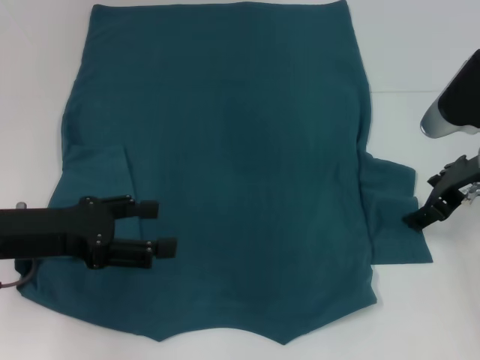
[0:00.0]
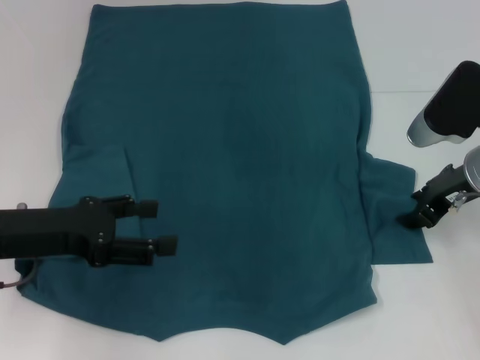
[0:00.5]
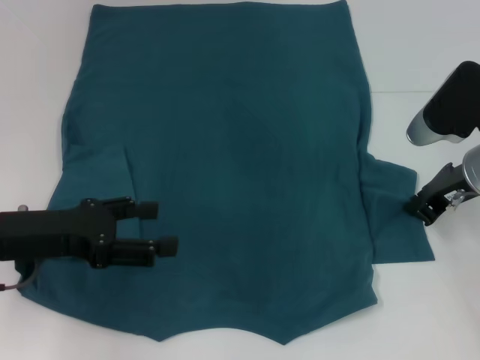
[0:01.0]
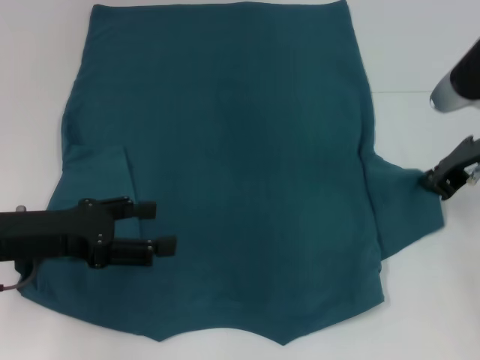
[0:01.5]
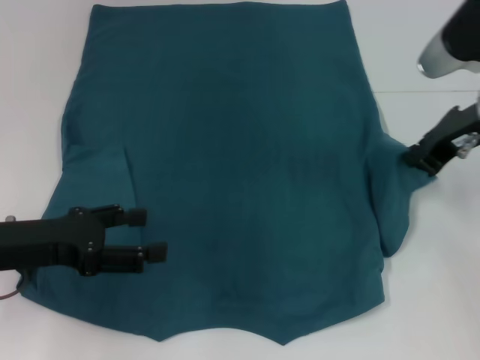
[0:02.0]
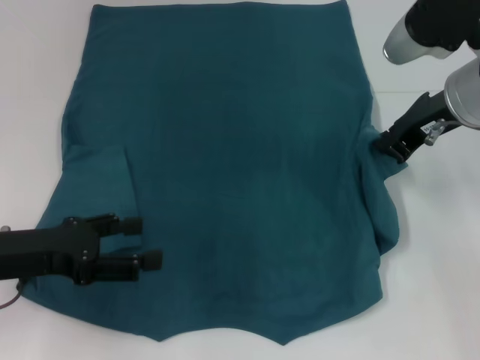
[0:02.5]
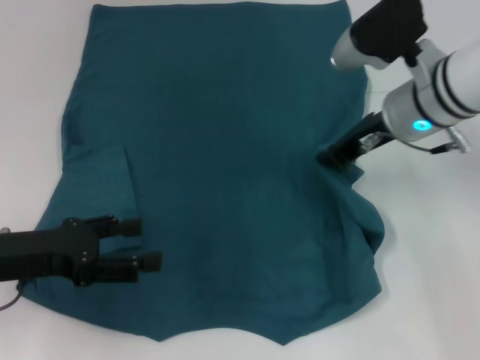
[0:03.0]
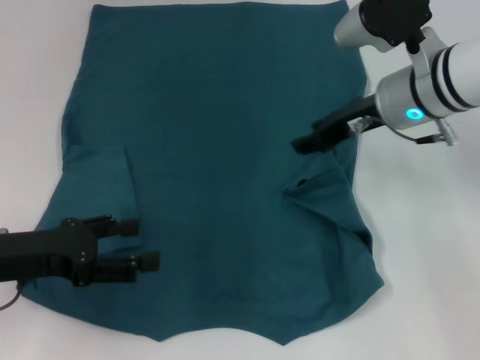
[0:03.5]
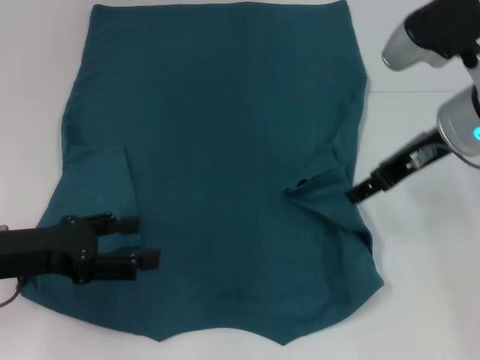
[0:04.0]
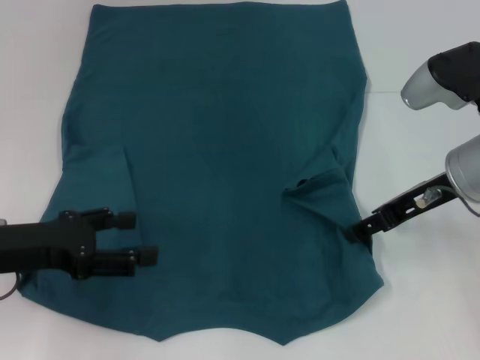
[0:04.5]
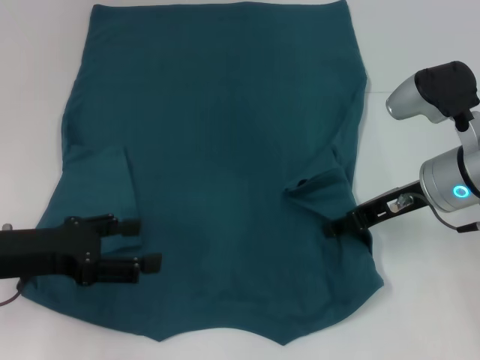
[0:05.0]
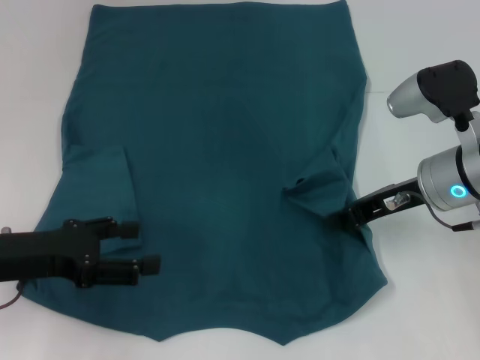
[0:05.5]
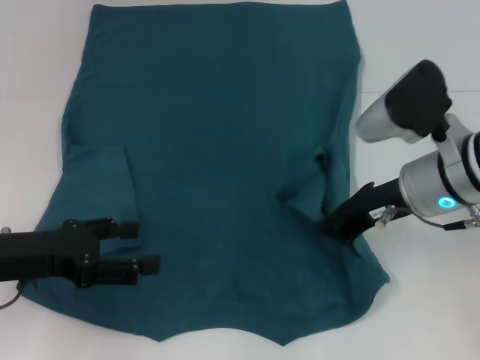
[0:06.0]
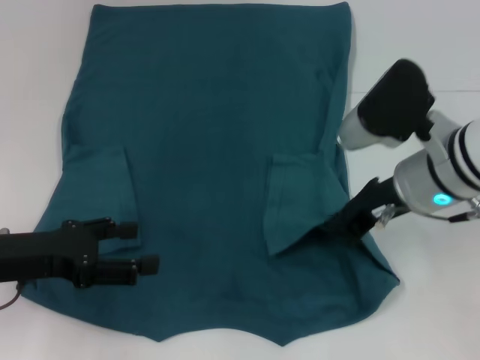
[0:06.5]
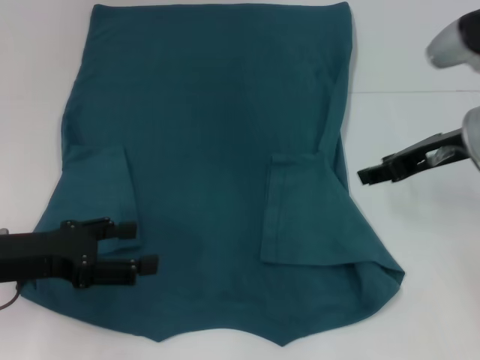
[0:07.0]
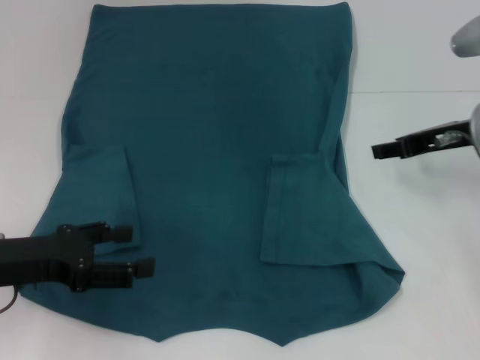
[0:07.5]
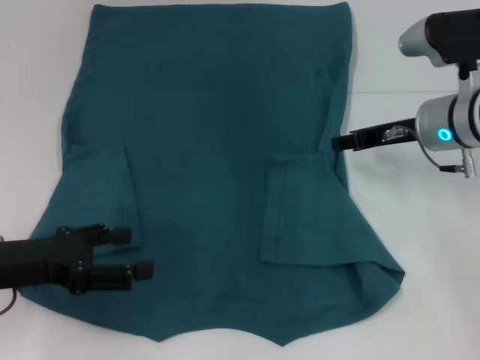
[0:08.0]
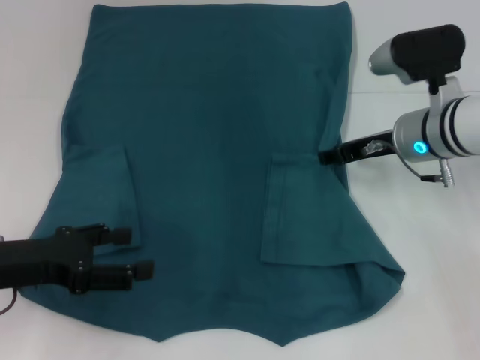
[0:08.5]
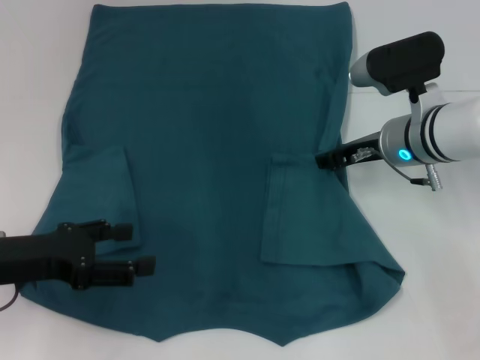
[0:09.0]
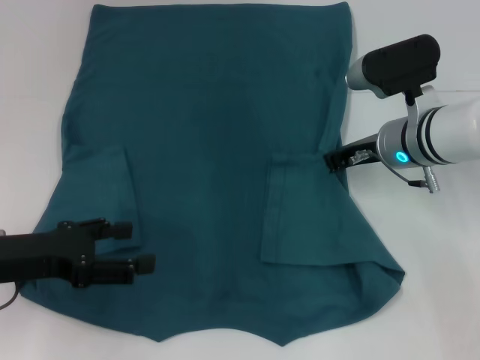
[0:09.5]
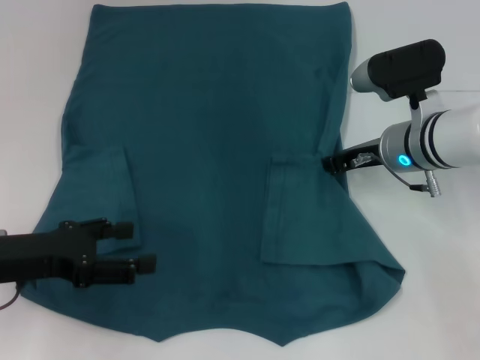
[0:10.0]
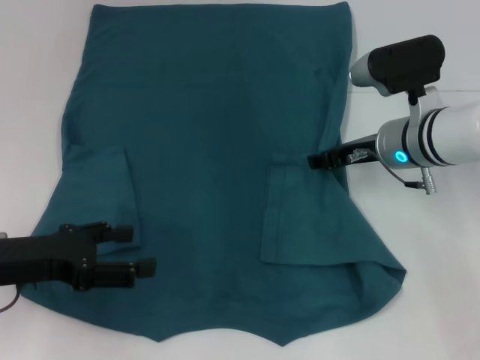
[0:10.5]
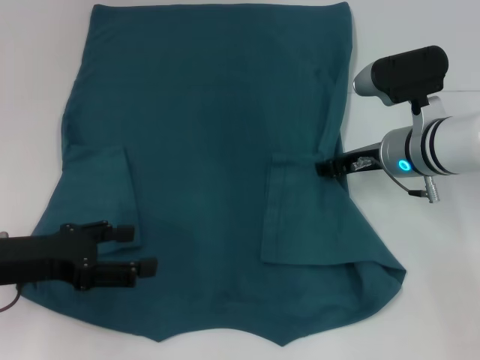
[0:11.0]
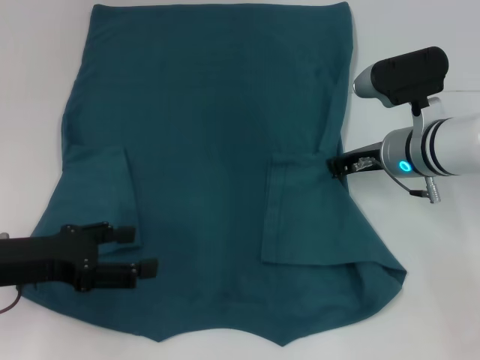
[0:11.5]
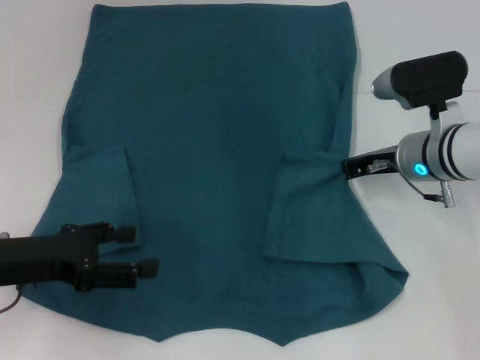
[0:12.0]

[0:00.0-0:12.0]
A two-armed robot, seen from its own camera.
Step, 0:00.0 to 0:06.5: Fold the bottom right sleeve to the right.
0:00.0 to 0:02.0: The right gripper travels upward by about 5 cm, and closes its fingers.
0:02.0 to 0:04.0: The right gripper opens up.
0:04.0 to 0:06.0: The right gripper travels downward by roughly 5 cm, and closes up.
0:06.0 to 0:08.0: The right gripper goes about 5 cm forward, and opens its fingers.
0:08.0 to 0:10.0: The right gripper closes up.
0:10.0 to 0:12.0: The right gripper opens, then closes once more.

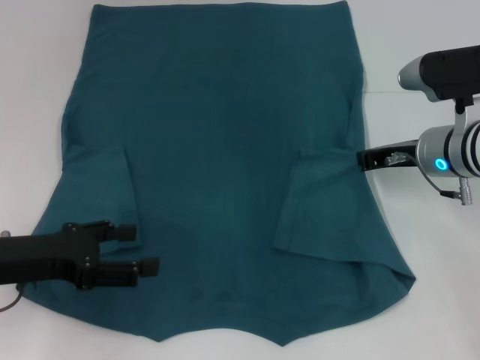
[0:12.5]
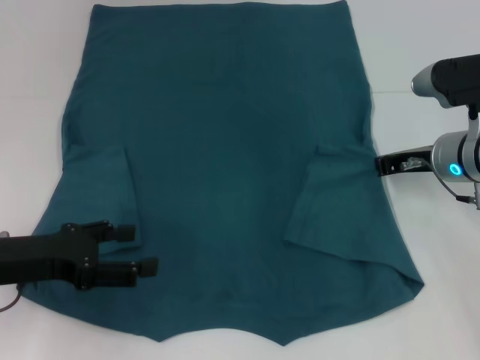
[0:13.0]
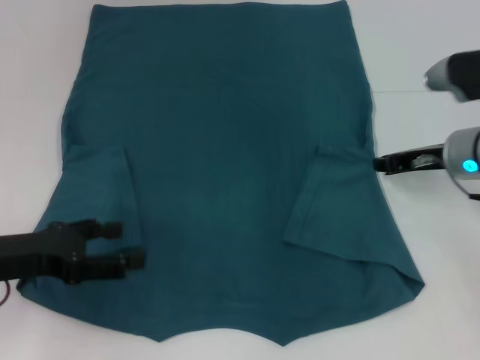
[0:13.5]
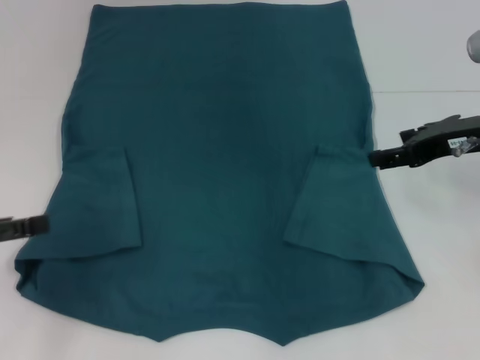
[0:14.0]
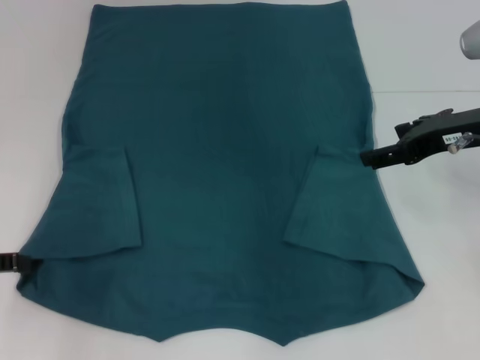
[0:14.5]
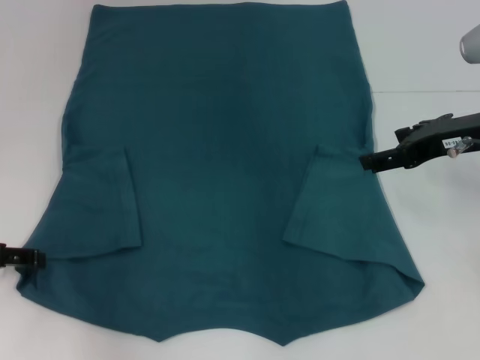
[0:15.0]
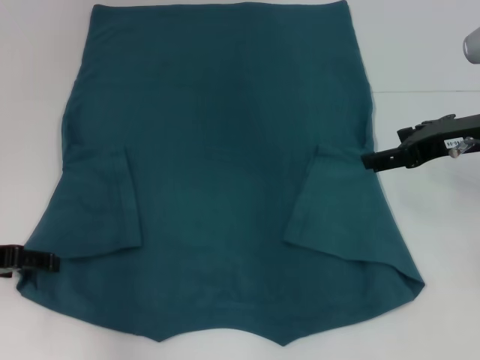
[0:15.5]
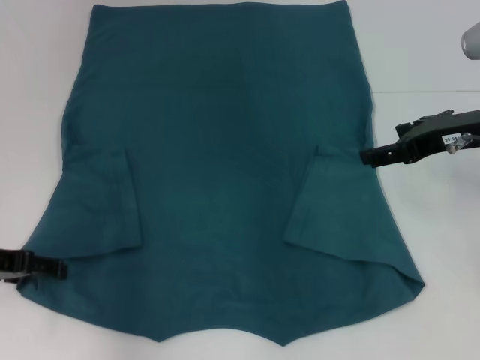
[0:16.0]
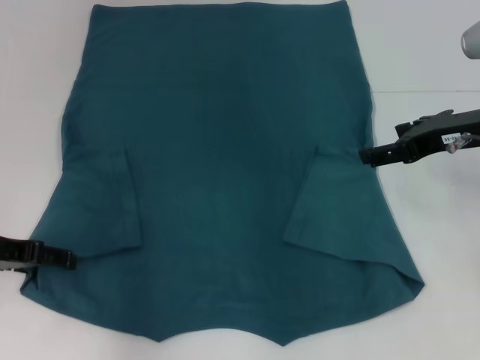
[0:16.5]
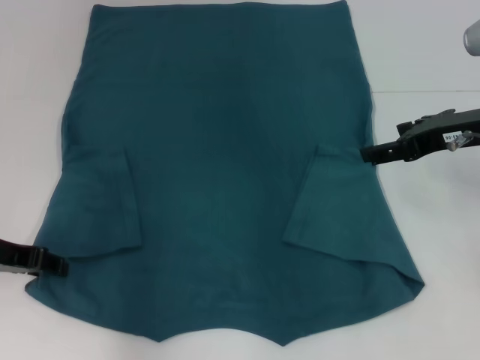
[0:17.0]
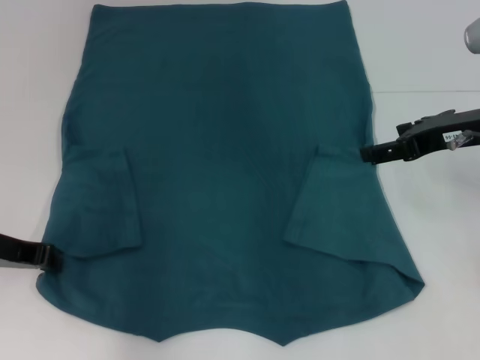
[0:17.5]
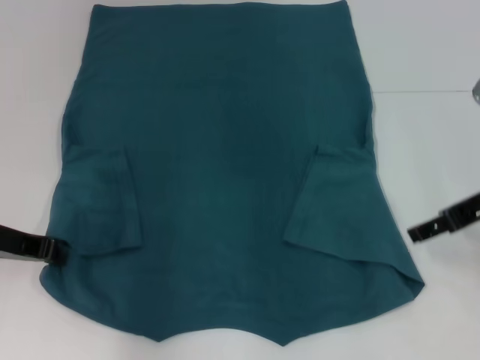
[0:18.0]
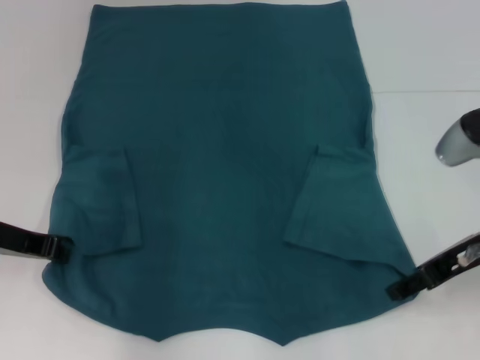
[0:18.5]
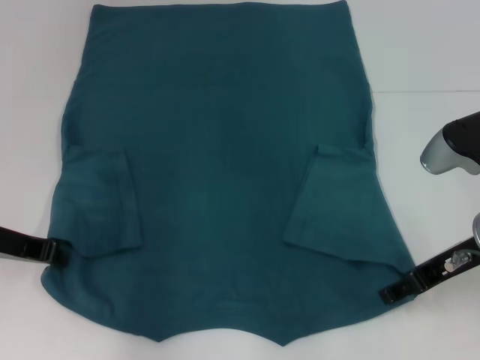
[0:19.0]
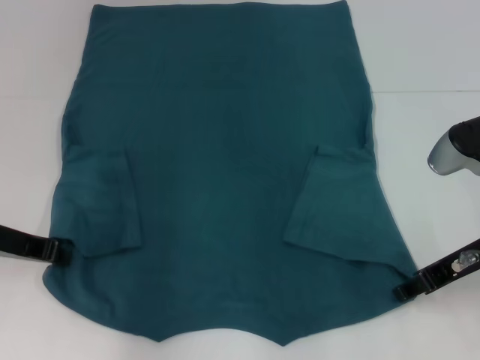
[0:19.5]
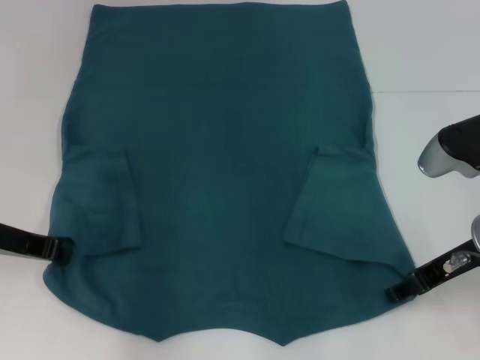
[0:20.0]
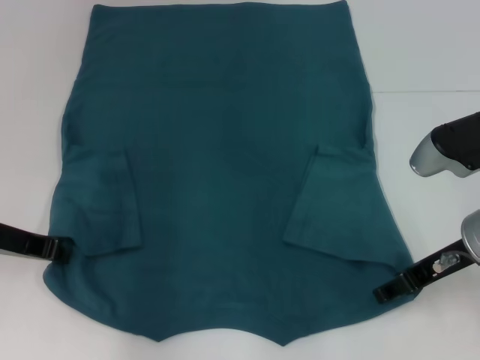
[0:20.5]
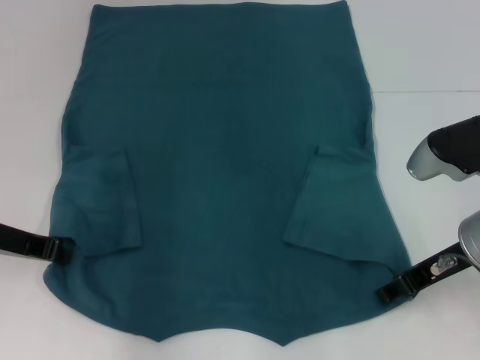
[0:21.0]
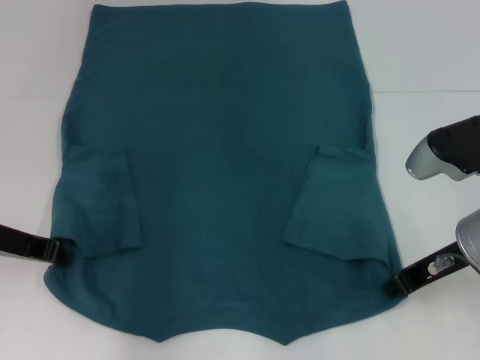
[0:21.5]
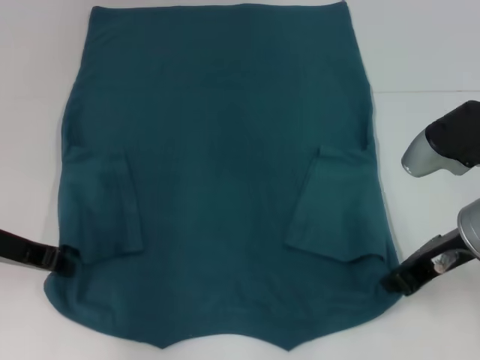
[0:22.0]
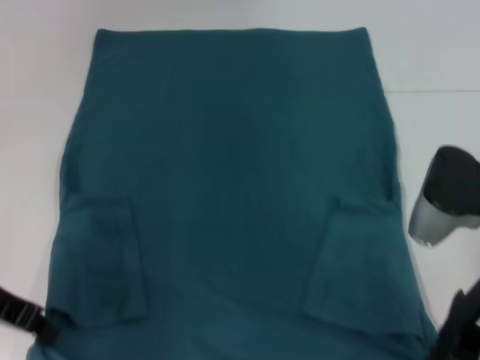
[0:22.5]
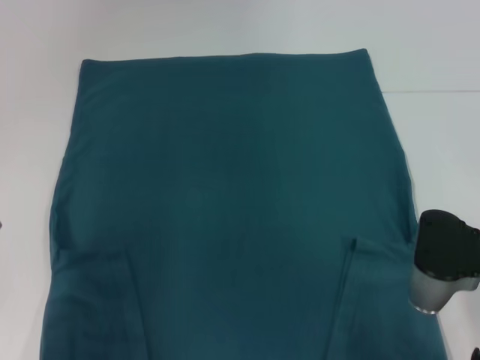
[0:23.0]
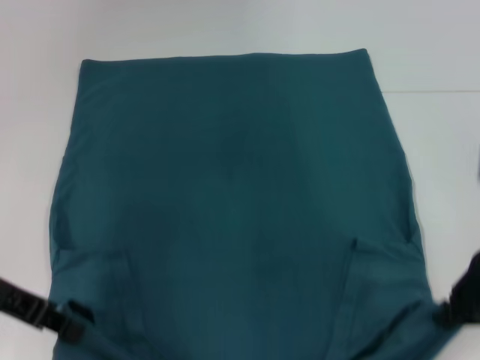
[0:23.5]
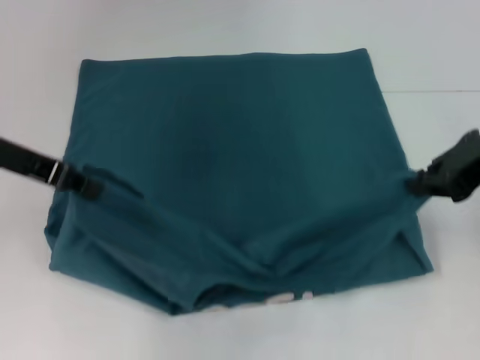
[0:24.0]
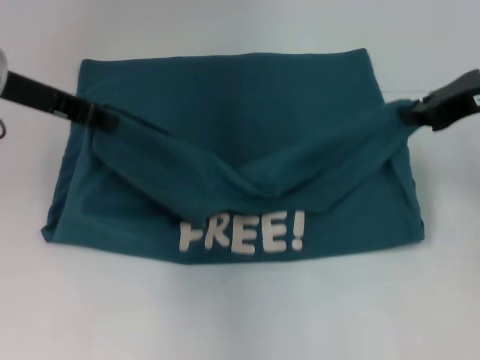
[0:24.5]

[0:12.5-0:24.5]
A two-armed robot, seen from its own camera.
Step, 0:12.5 to 0:17.0: Grab the bottom left corner with your left hand.
Step, 0:17.5 to 0:21.0: Grab the bottom right corner with your right hand.
0:12.5 to 0:14.5: The left gripper is displaced to the left by some 5 cm. Meanwhile the right gripper goes approximately 10 cm upward, and opens its fingers.
0:14.5 to 0:16.5: The left gripper travels forward and to the right by roughly 10 cm.
0:16.5 to 0:18.5: The left gripper closes its fingers; the right gripper travels backward by roughly 5 cm.
0:18.5 to 0:20.5: The grippers stay close to where they were, moving slightly.
0:20.5 to 0:22.5: The right gripper closes its fingers.
0:22.5 to 0:24.5: Both grippers travel together upward and forward, approximately 15 cm.

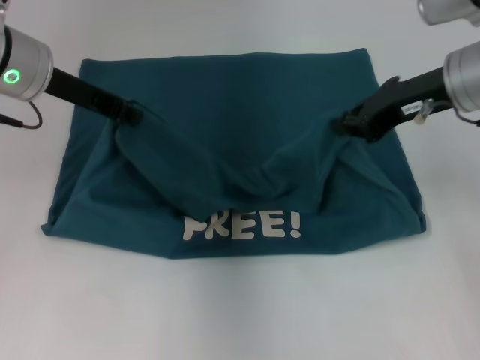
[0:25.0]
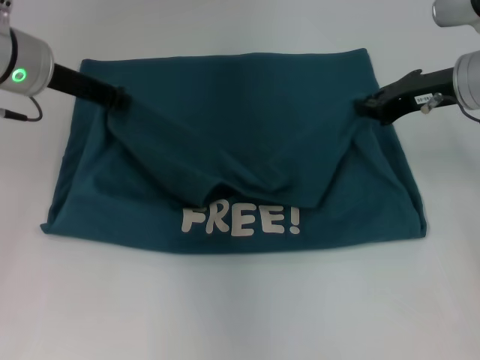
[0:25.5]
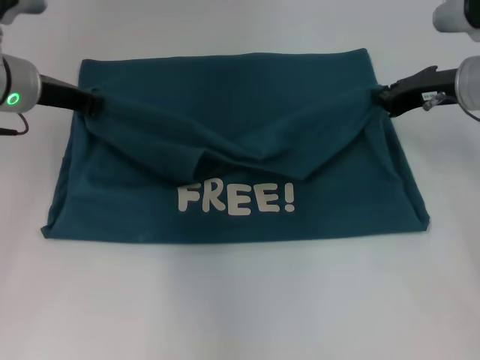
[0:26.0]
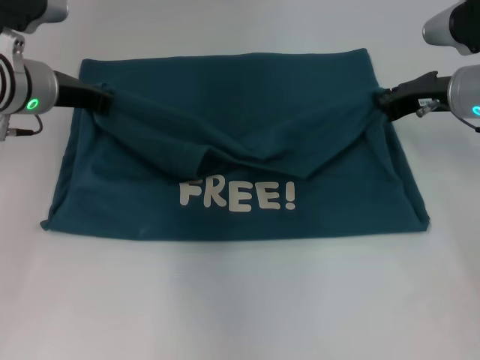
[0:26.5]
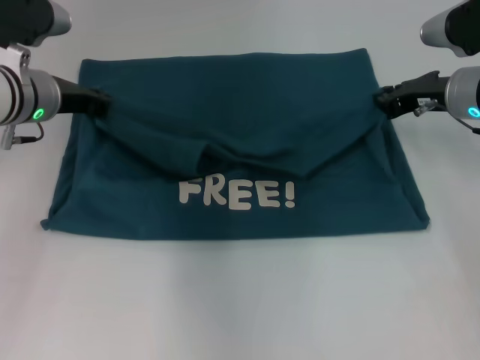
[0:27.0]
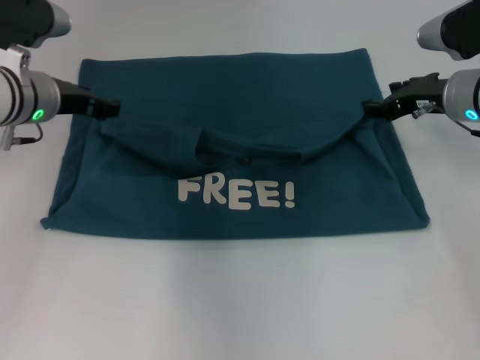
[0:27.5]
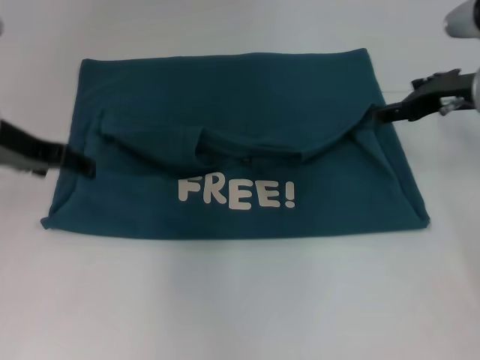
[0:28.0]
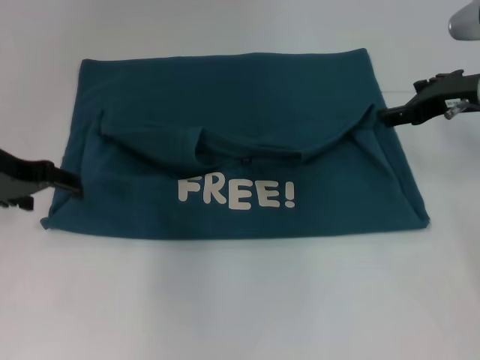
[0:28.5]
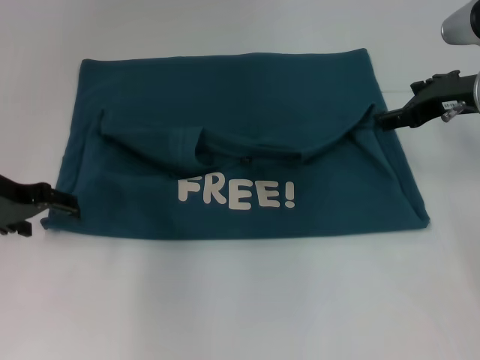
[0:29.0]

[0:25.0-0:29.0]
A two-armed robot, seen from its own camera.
Step, 0:25.0 to 0:27.5: Fold the clothes to the left.
Step, 0:25.0 to 0:27.5: Fold the clothes to the right.
0:25.0 to 0:27.0: Both grippers travel together downward, approximately 10 cm.
0:27.0 to 0:29.0: The right gripper opens up. The left gripper travels backward and to the left by approximately 10 cm, and opens its fingers.
